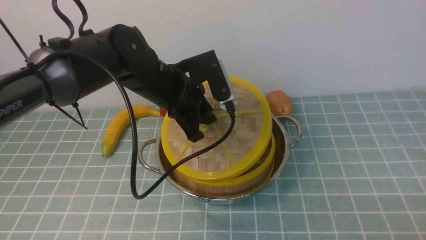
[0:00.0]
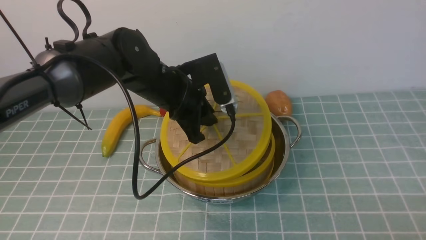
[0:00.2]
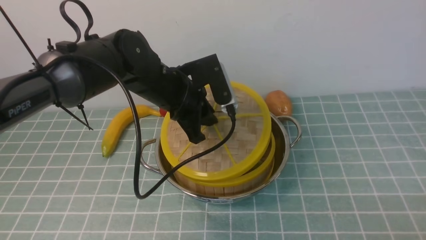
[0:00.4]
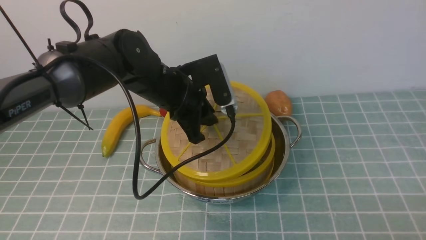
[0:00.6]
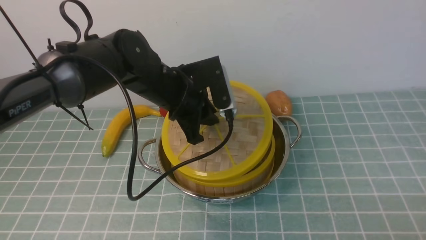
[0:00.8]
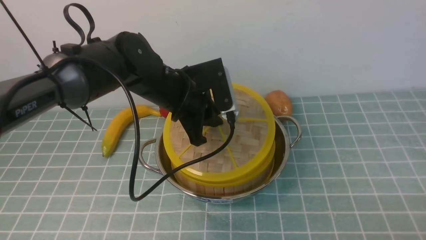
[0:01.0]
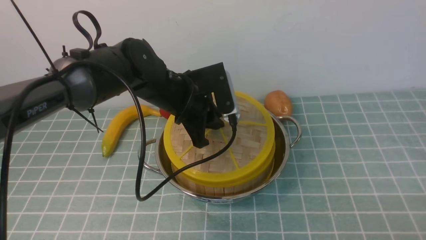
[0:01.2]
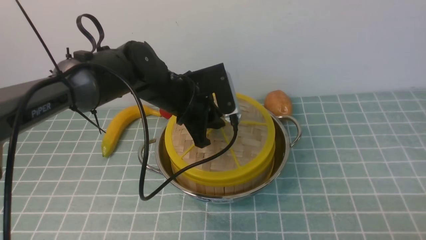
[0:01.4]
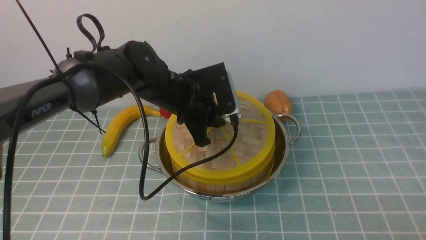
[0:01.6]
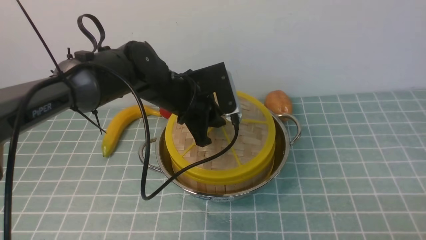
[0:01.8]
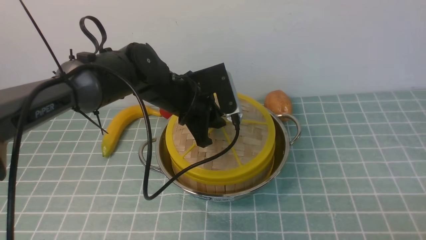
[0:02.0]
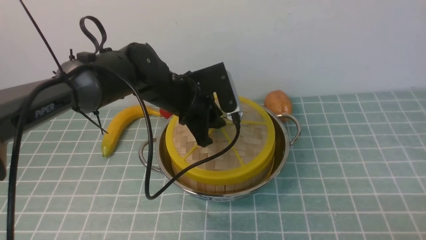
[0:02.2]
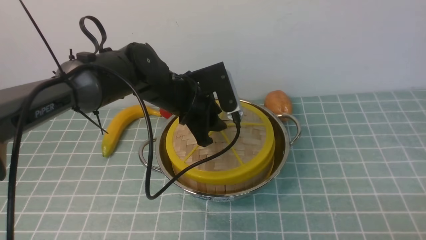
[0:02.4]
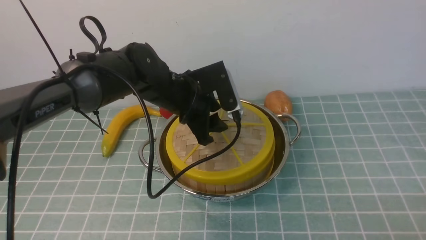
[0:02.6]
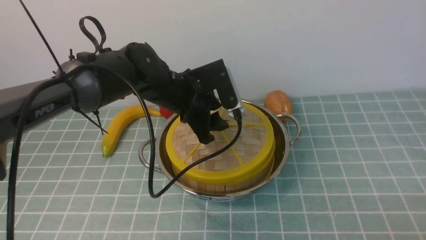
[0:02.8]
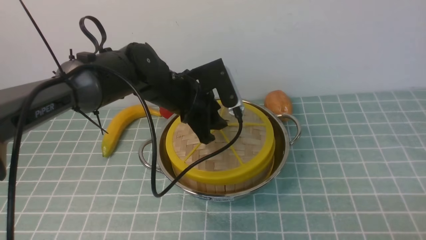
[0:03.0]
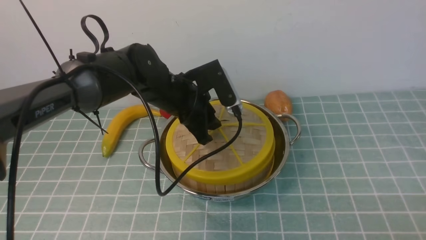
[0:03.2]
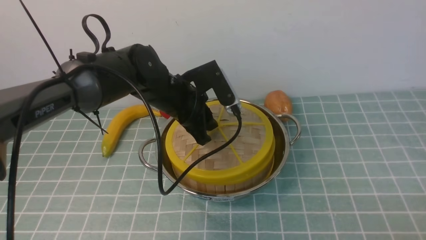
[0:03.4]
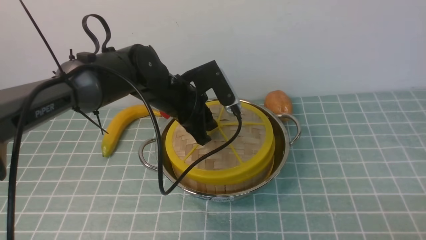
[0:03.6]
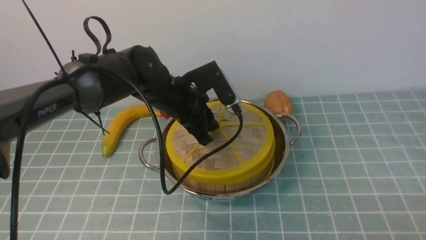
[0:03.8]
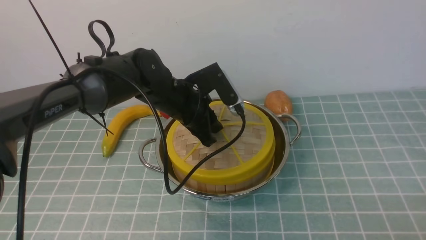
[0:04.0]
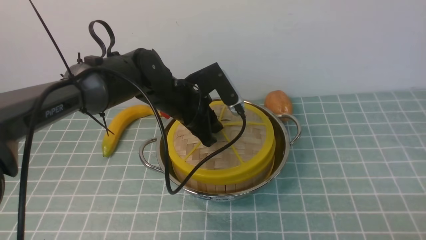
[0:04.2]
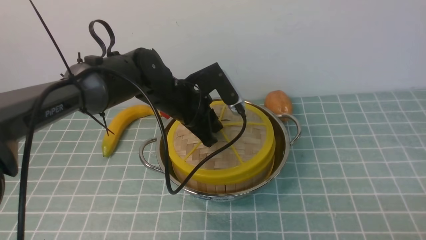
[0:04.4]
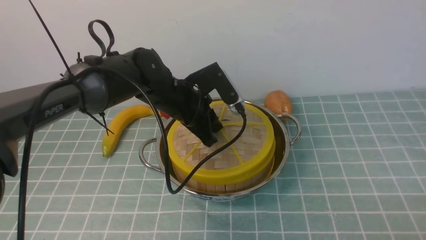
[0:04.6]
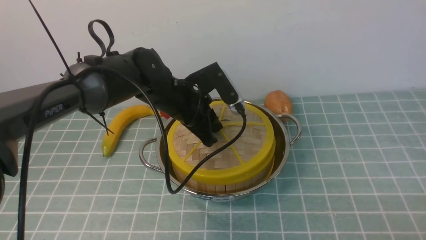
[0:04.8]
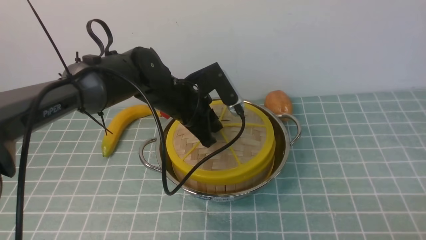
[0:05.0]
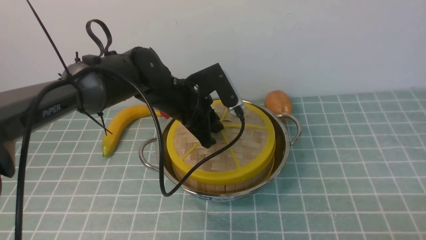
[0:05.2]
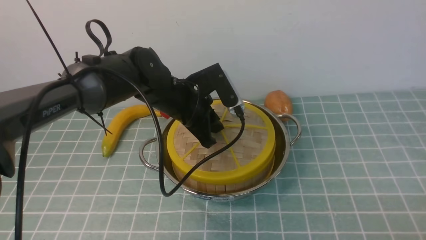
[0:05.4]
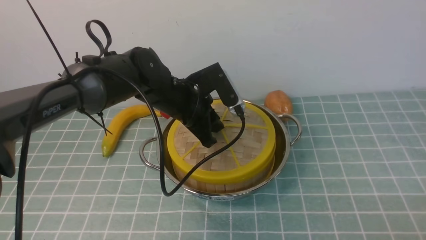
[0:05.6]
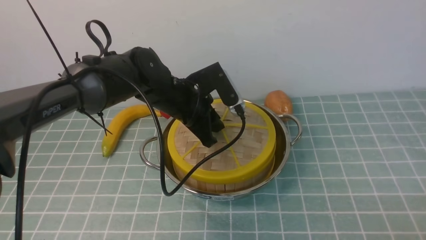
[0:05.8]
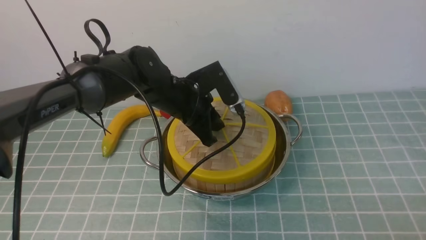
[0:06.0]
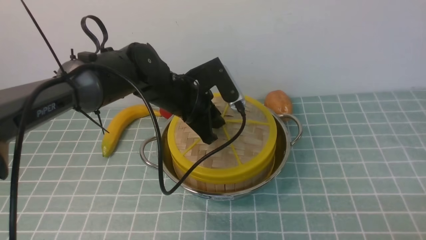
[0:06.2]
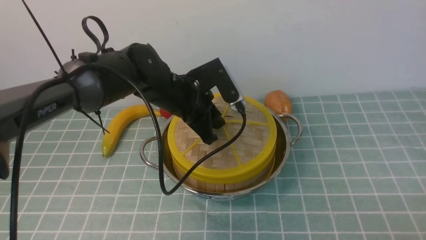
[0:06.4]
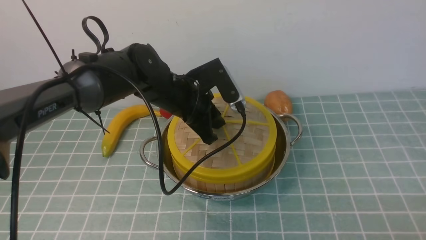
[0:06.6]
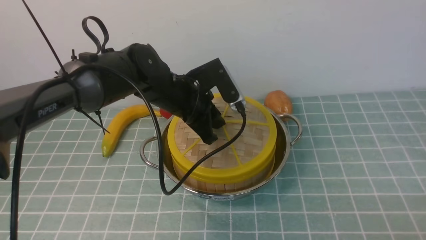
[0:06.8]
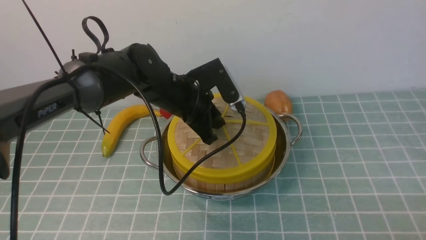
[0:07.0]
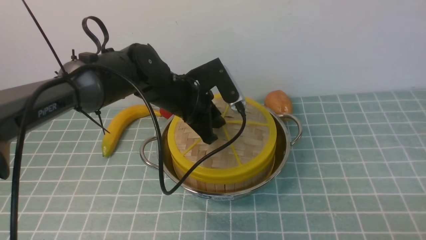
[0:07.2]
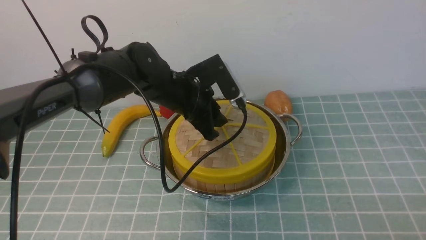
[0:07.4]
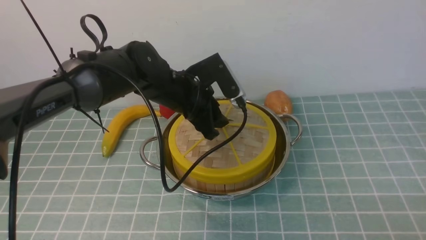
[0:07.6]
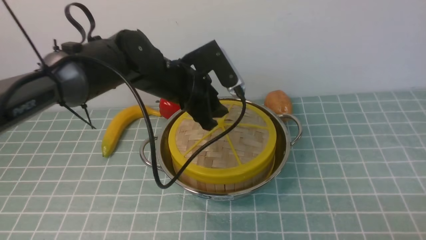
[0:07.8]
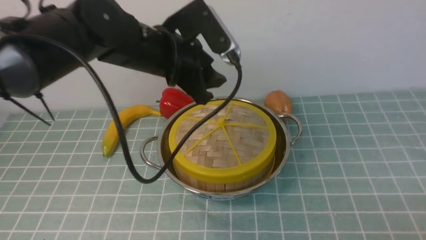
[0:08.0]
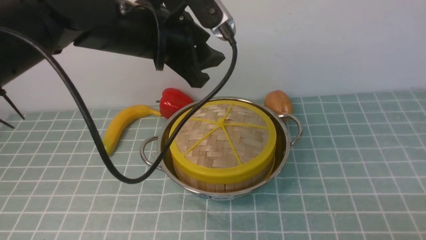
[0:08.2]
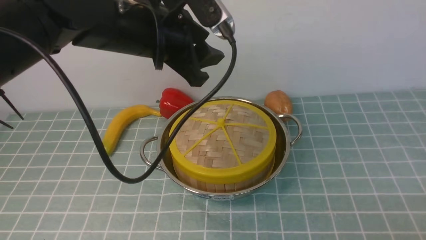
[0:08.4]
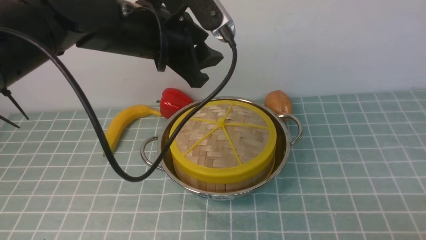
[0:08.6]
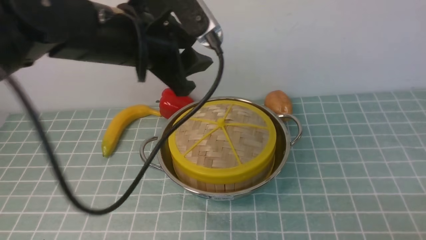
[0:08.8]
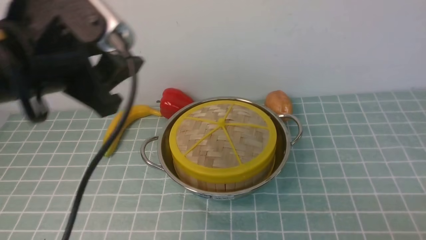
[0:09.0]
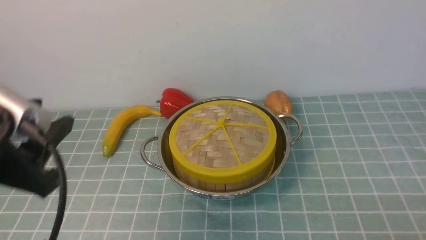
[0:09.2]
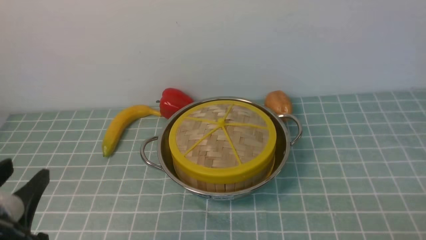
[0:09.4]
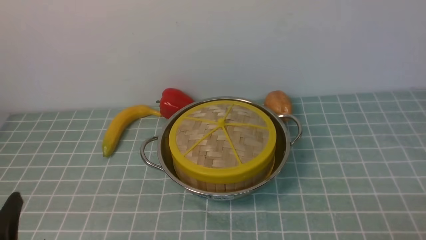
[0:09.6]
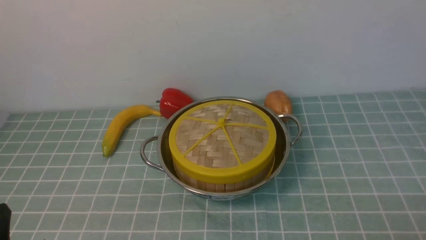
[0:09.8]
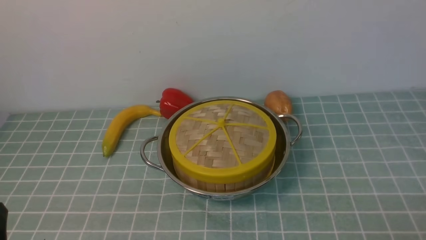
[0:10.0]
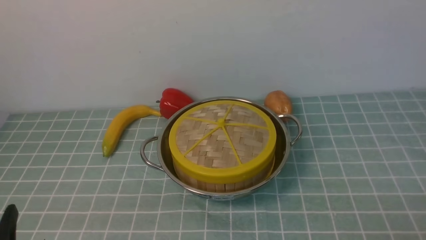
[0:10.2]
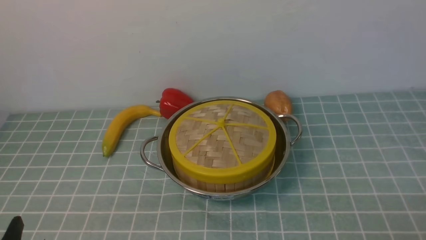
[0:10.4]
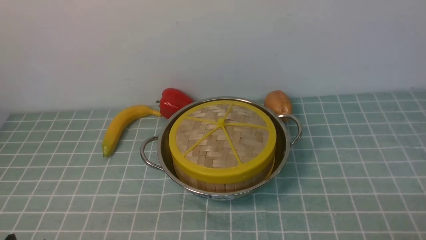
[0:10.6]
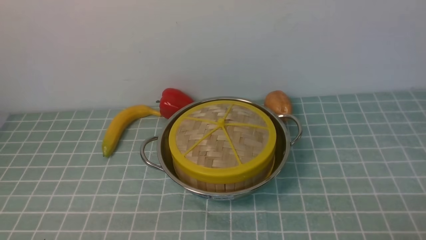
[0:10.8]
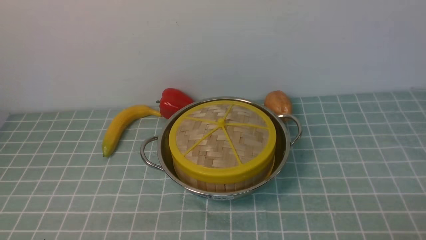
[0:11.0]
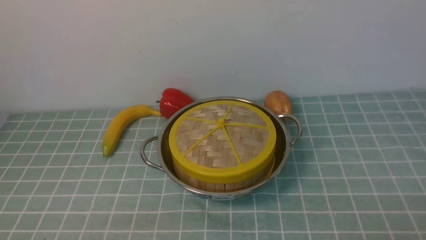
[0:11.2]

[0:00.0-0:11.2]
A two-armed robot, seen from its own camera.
Task of the whole recording: place the steamer in the pot on the blue tablecloth, and put the lid on the steamer.
Step, 0:00.0 to 0:08.0: use the left arm to place the steamer lid on the steamer.
0:00.0 to 0:01.6: The grippers move only a little.
0:01.6 to 0:03.2: The left gripper opens its fingers.
0:03.2 to 0:04.8: The left gripper closes.
0:04.8 to 0:06.4: Both grippers stay about where they are.
0:06.4 to 0:08.0: The left gripper is displaced upward by roughly 10 cm, and opens its fingers.
0:08.0 to 0:09.6: The left gripper travels backward and to the left by approximately 35 cm.
0:09.6 to 0:11.2: The left gripper goes approximately 5 cm downward.

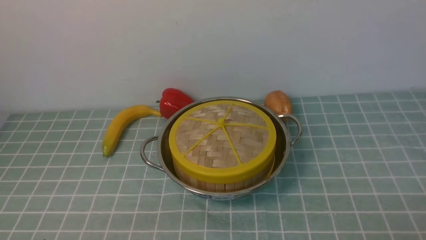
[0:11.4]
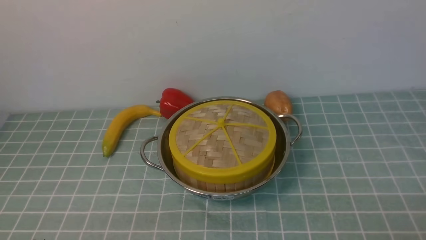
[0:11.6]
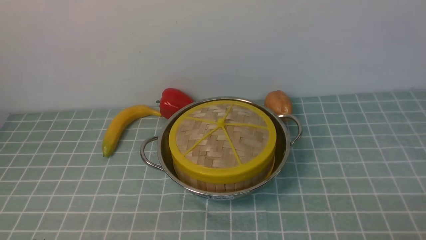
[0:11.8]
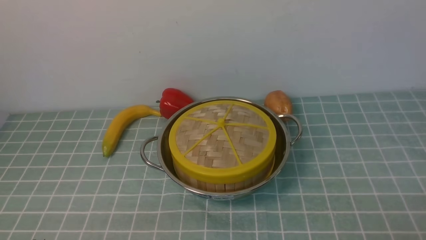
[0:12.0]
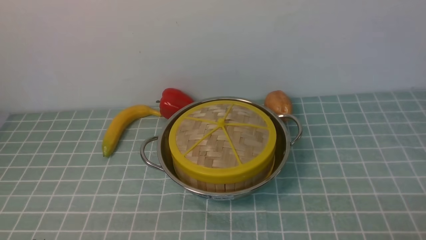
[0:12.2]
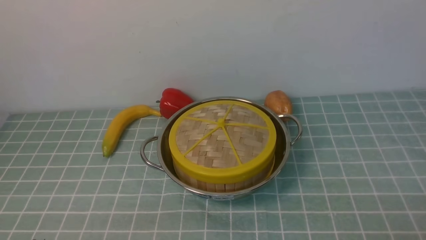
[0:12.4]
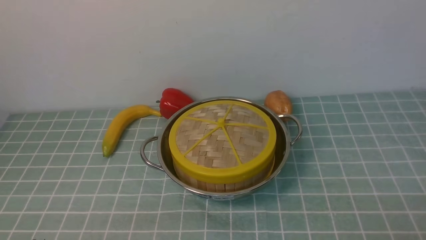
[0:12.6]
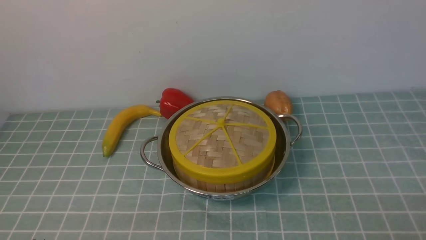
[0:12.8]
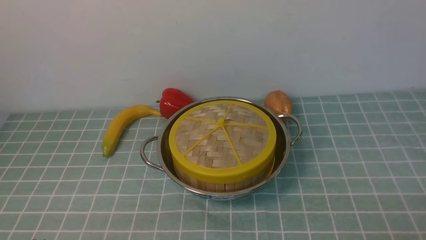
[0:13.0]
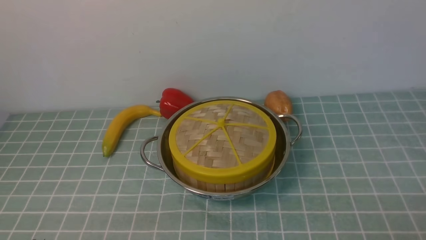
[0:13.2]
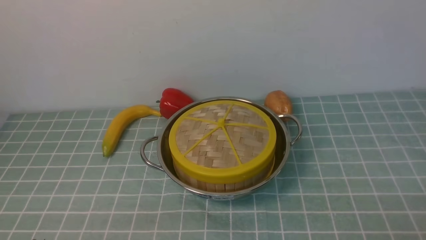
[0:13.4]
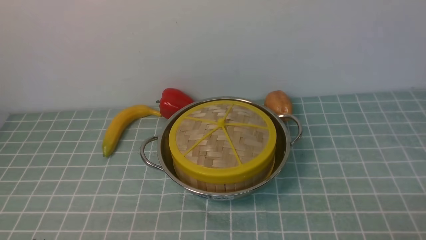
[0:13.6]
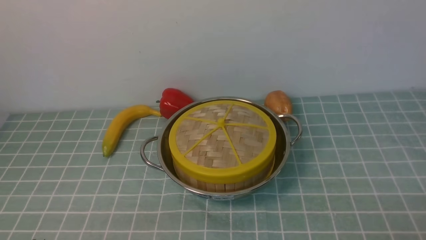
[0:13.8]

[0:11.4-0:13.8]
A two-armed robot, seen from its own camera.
Task of the whole recording: place the steamer in the pot on the blue tablecloth, and put the lid on the steamer.
0:11.4 to 0:13.8: Both grippers stay about where they are.
